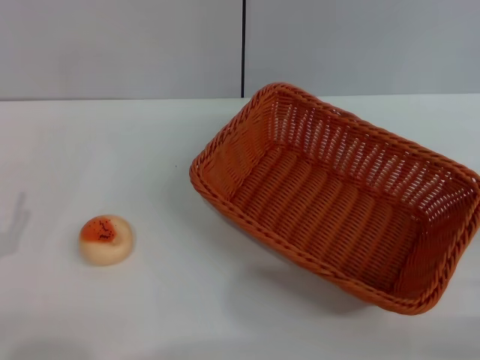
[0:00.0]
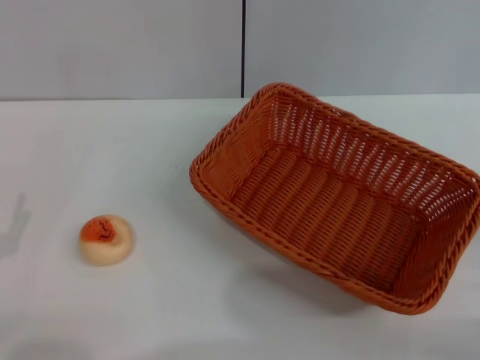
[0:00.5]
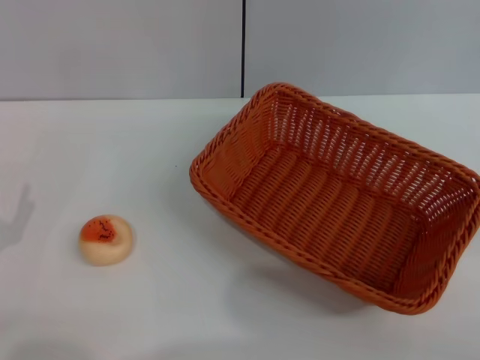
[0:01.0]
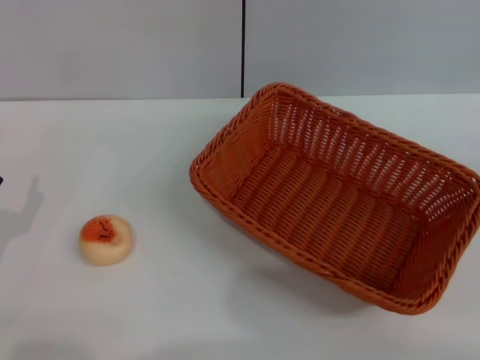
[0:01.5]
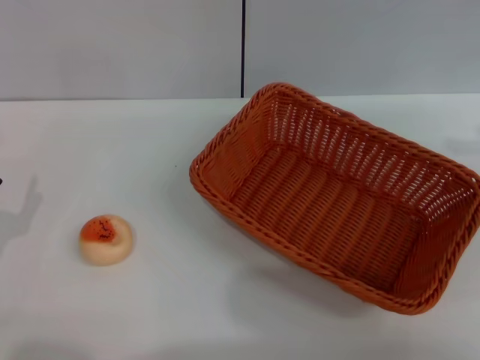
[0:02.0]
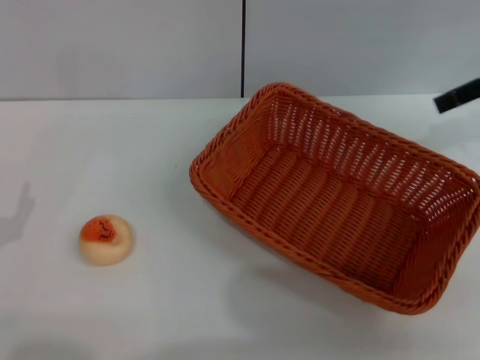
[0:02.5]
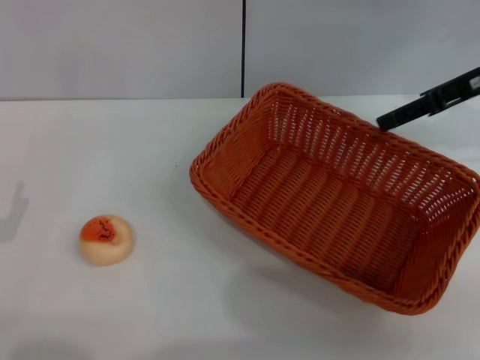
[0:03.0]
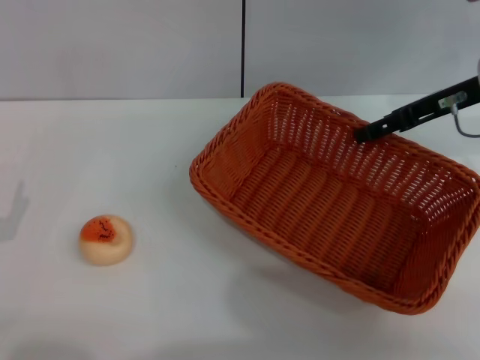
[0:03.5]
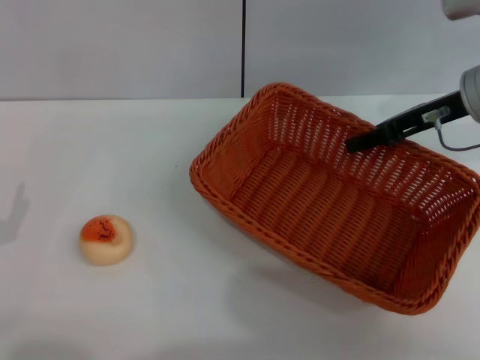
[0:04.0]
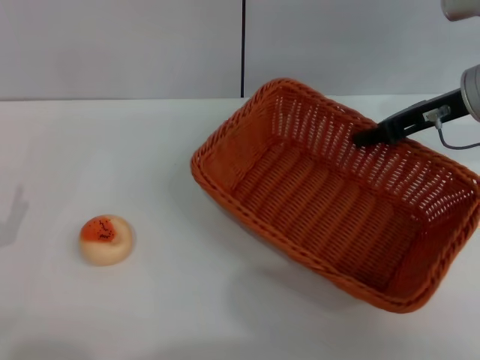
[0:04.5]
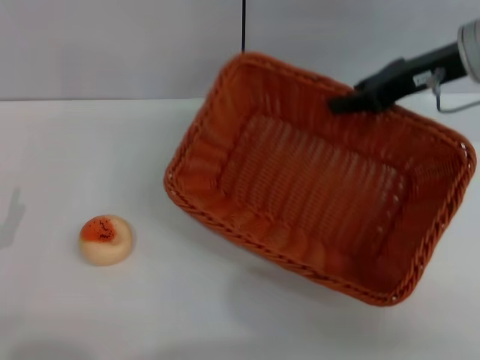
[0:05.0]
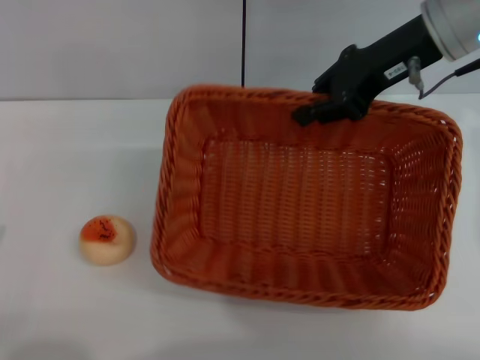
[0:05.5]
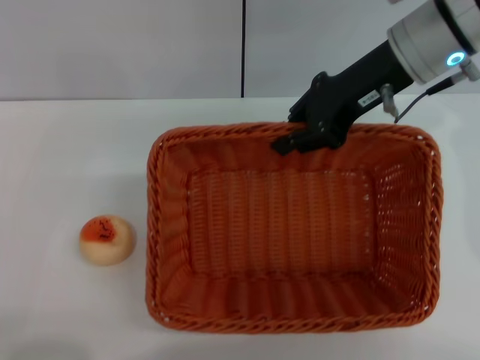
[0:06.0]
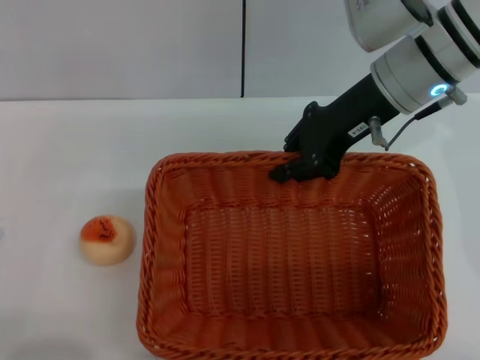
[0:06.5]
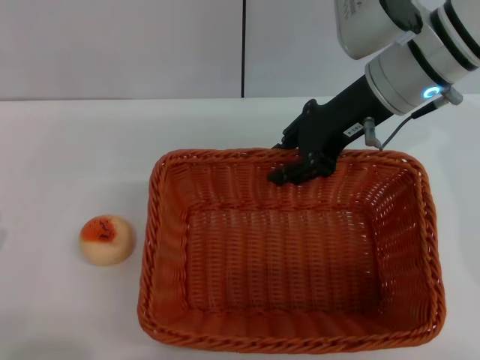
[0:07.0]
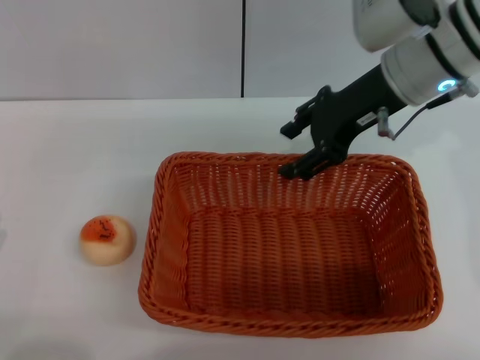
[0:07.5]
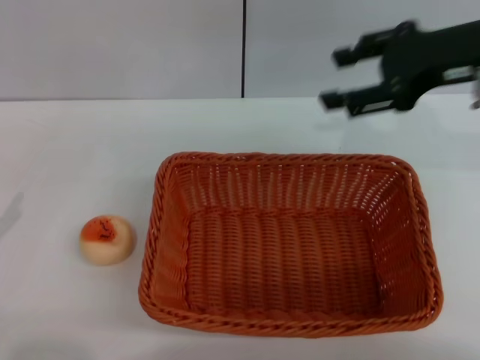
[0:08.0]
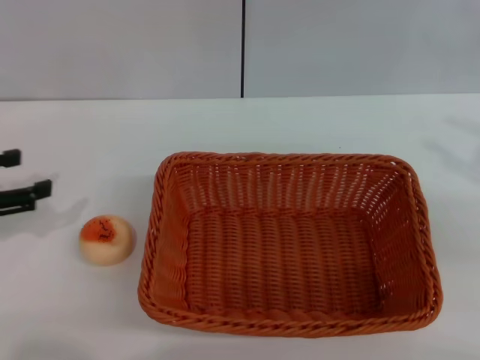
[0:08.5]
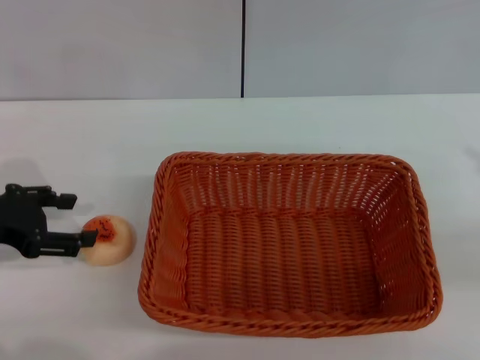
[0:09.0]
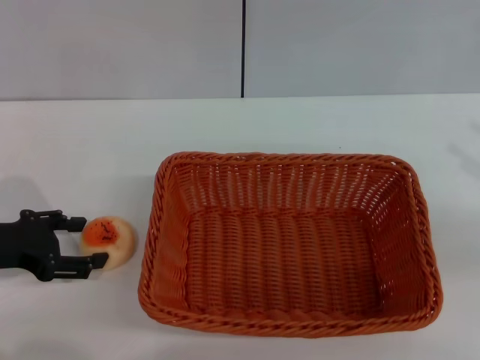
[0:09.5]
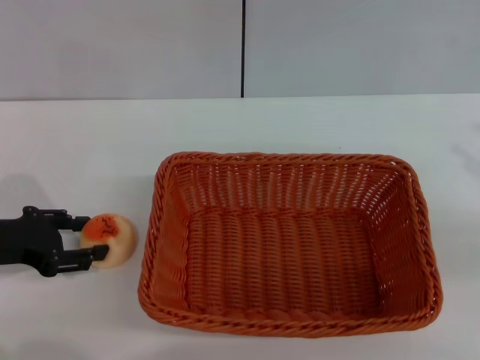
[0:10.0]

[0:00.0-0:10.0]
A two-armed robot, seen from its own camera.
Step, 0:00.0 to 0:07.5: Move the basket to the center of view with the right gripper.
0:02.0 to 0:04.0: The right gripper travels to the left and downward by about 20 cm.
0:04.0 to 0:06.0: The right gripper goes some 10 cm to the left and upward, and closes its fingers.
0:06.0 to 0:08.0: The left gripper moves approximately 5 cm, while the right gripper moves to the right and backward, roughly 10 cm, and opens.
0:08.0 to 0:10.0: The right gripper is displaced to the right and backward by about 20 cm. Meanwhile the left gripper heads forward and to the right, covering some 10 cm.

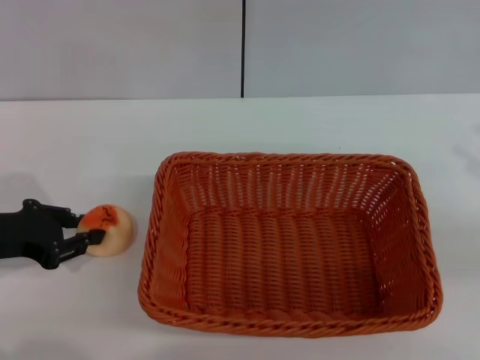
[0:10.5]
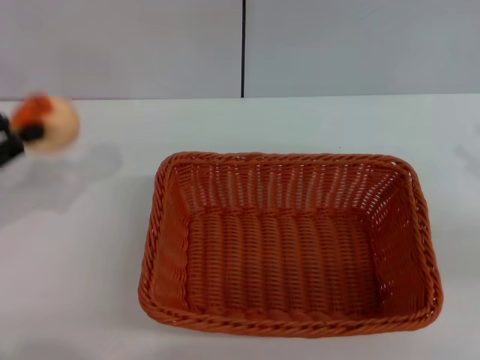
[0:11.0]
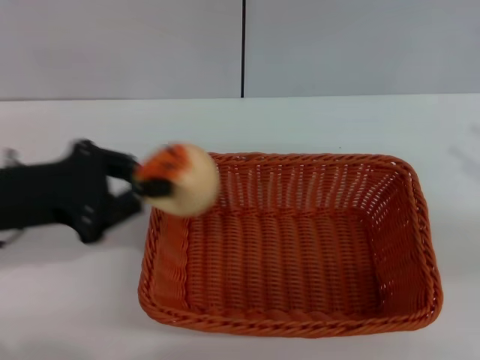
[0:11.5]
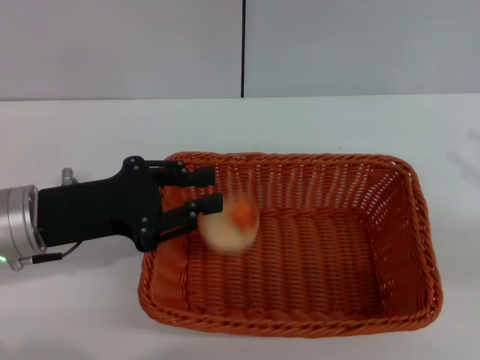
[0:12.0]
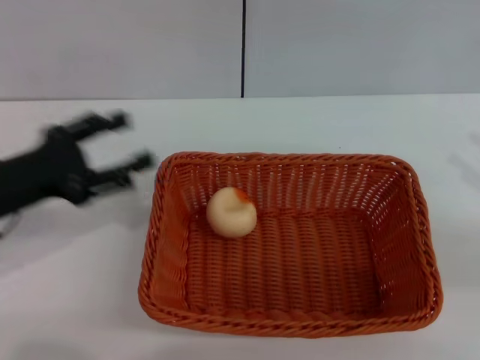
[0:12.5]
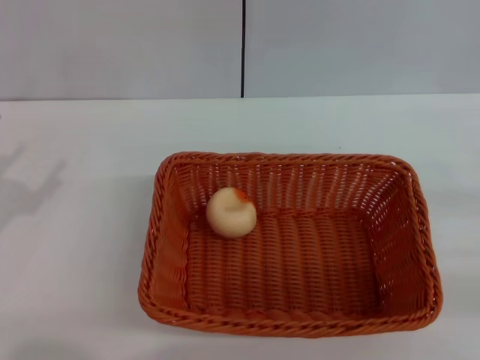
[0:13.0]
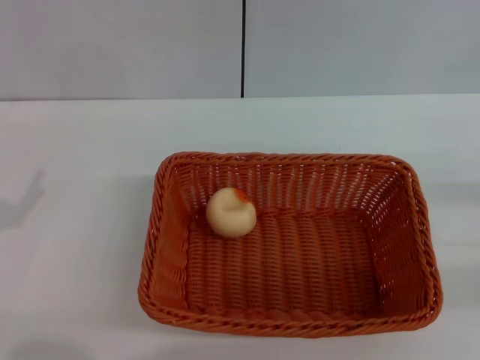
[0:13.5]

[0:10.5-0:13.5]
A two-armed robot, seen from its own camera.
Step, 0:11.0 to 0:12.0: Place the egg yolk pastry into the basket with the left gripper.
0:10.5 to 0:12.0: The left gripper heads to the right, covering about 10 cm.
0:12.0 to 0:13.5: The right gripper moves downward, approximately 10 cm, while the left gripper shifts about 15 cm to the left, backward and downward, and opens up.
